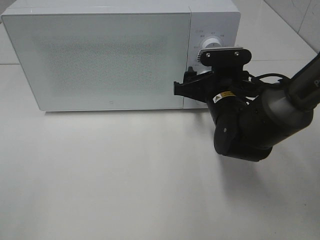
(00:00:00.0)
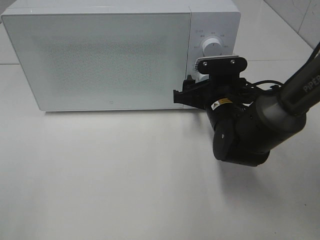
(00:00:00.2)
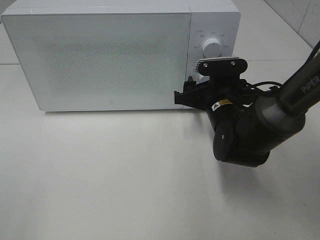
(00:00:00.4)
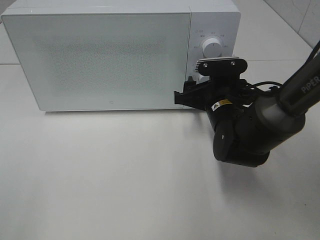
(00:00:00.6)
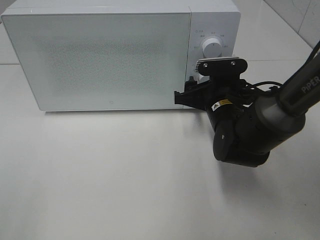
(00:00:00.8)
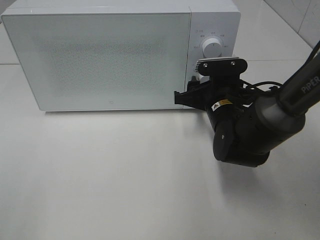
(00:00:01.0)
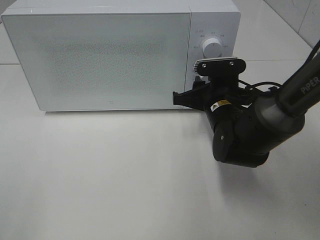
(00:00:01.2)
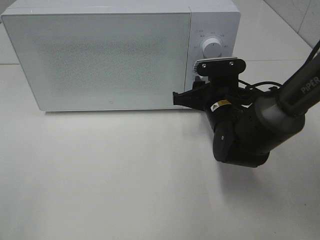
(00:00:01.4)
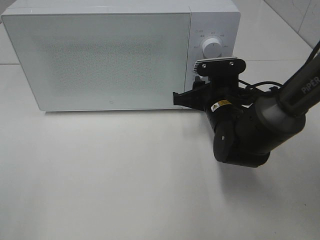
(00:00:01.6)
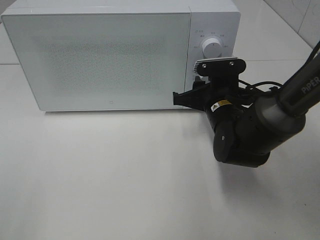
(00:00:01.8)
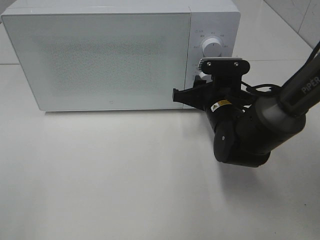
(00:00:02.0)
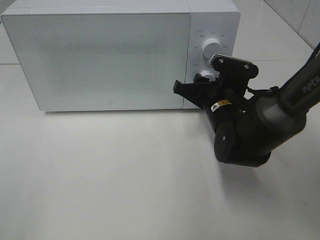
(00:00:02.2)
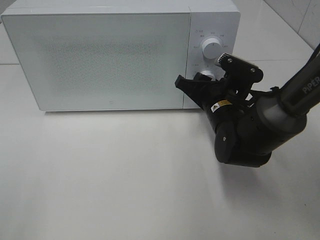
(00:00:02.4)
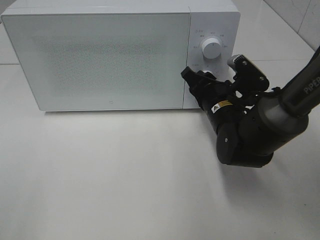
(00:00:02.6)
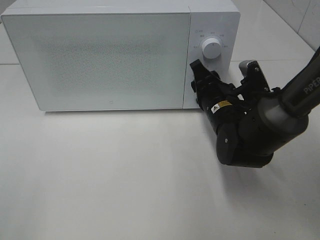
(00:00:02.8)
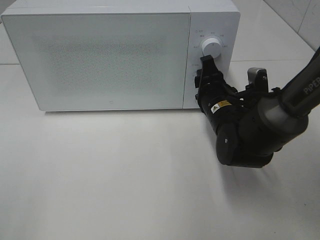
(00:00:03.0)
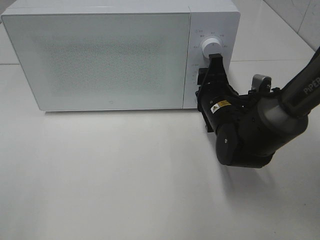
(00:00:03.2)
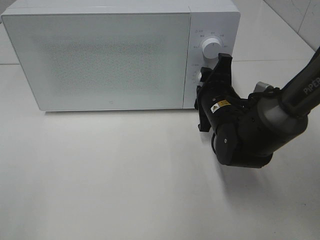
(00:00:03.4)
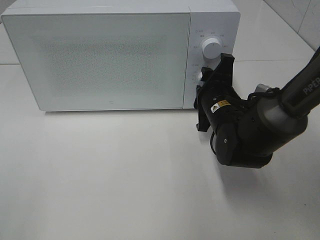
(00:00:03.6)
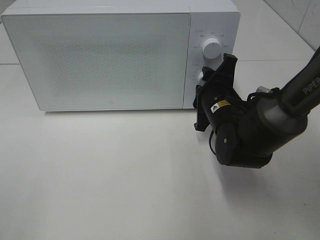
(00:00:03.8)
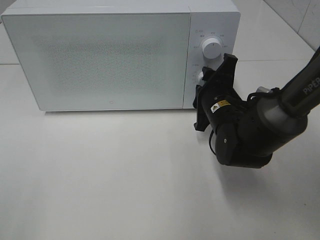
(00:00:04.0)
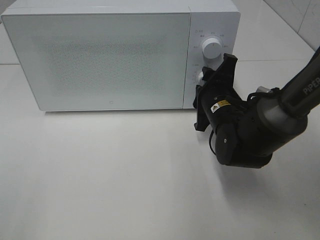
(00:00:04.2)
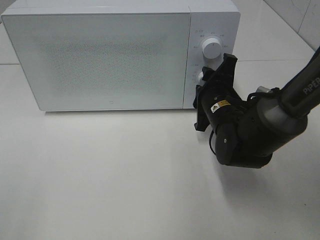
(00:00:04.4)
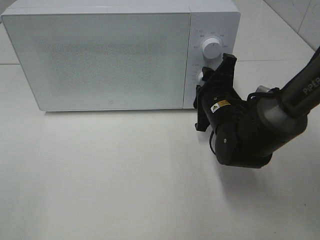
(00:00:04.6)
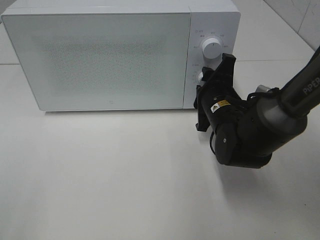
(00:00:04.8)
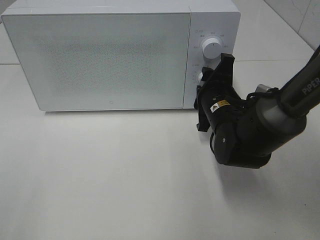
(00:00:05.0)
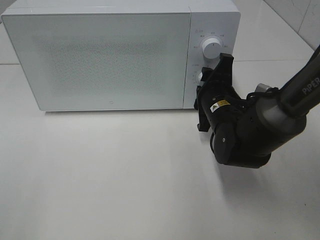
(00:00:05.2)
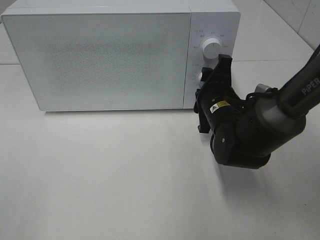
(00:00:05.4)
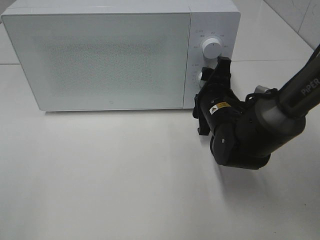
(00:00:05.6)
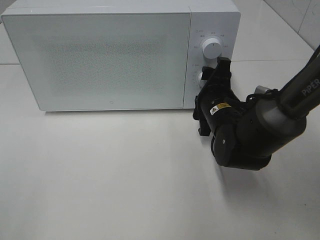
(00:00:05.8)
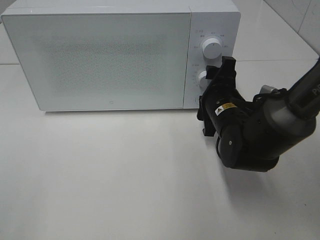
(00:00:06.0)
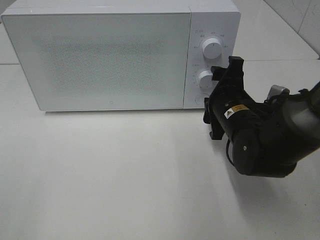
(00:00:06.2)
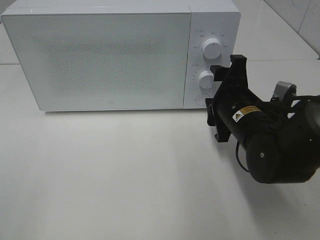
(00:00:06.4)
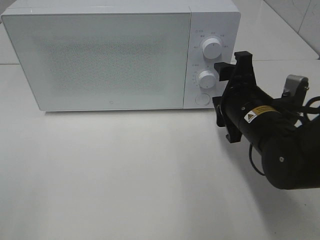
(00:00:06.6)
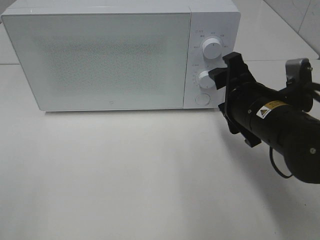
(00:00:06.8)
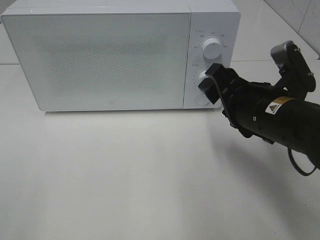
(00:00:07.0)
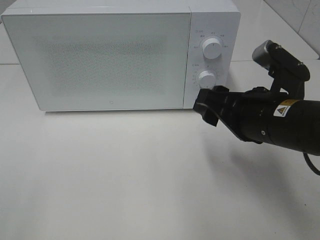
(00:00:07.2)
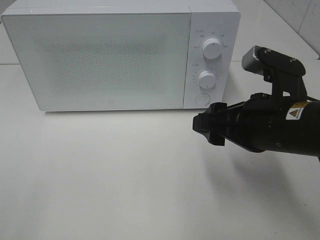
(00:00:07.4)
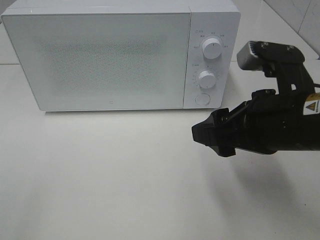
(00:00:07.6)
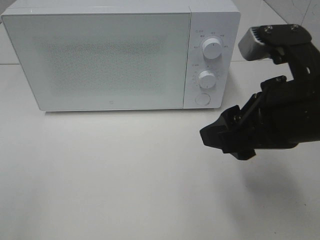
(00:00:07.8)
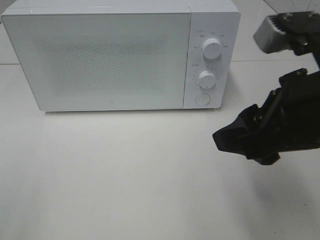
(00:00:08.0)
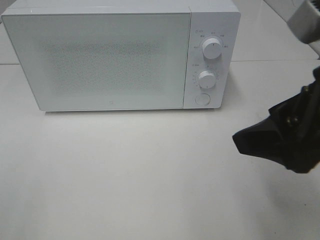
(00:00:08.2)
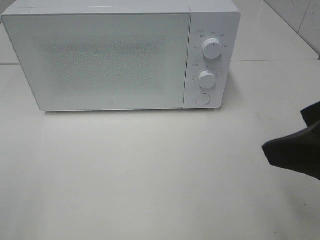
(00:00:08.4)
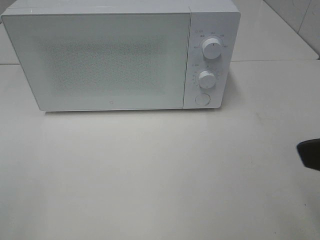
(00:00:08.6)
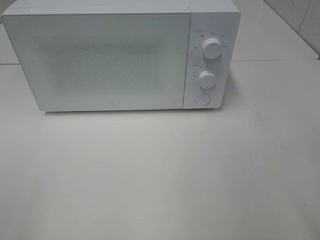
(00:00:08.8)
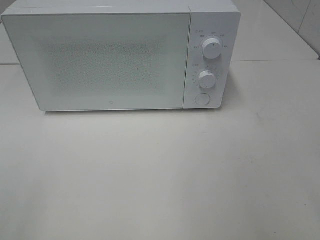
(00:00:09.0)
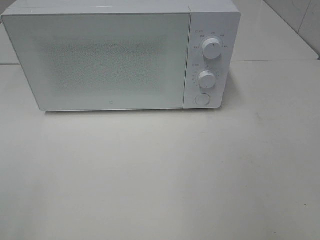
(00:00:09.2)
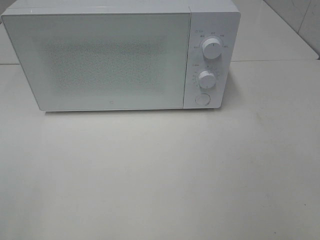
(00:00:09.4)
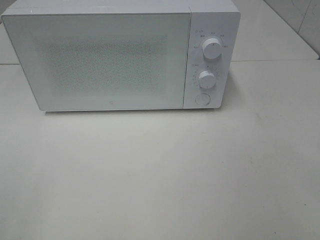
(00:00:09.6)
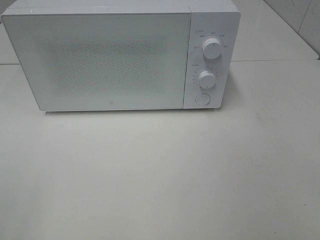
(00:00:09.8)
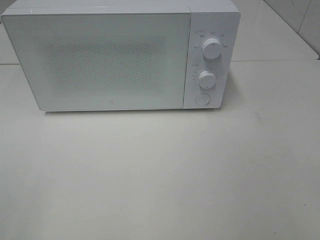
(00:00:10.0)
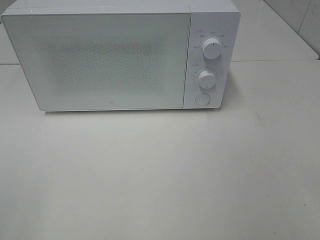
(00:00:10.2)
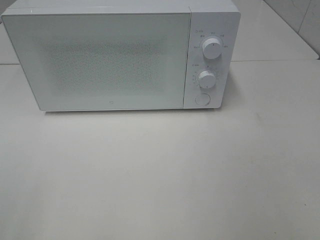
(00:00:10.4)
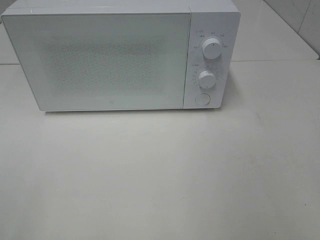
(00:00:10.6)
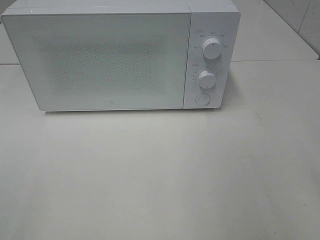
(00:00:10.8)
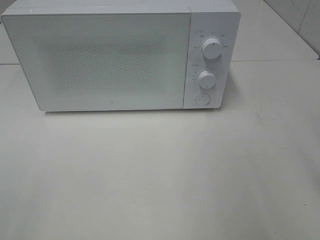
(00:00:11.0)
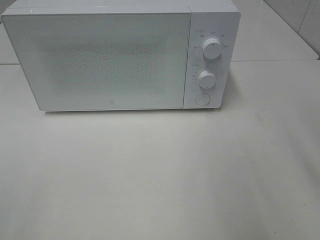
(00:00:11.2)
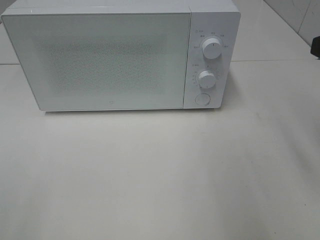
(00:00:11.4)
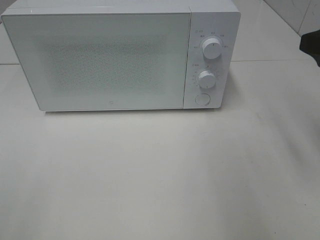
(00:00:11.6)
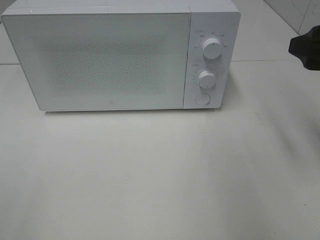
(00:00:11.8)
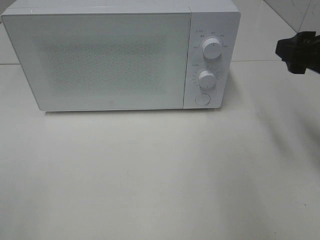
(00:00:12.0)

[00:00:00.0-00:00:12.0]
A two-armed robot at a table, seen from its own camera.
Task of the whole recording: Heat the burger.
Step, 00:00:00.0 to 00:00:05.8: Right hand: twist timer button.
00:00:00.0 to 00:00:01.6: The right gripper closes up.
00:00:04.4 to 00:00:06.0: The grippers make only small movements.
00:00:06.0 to 00:00:07.6: The right gripper is displaced backward and upward by approximately 15 cm.
00:00:07.6 to 00:00:09.0: The right gripper moves backward, to the right and upward, some 20 cm.
00:00:10.4 to 00:00:12.0: The right gripper shifts about 20 cm forward.

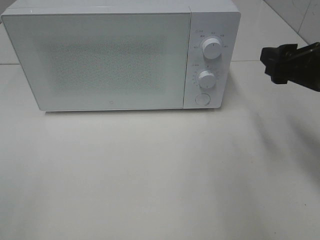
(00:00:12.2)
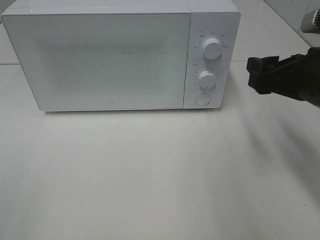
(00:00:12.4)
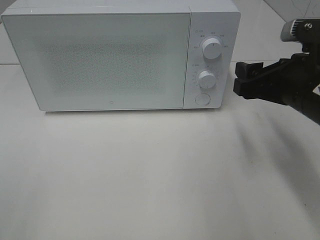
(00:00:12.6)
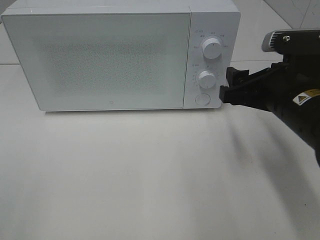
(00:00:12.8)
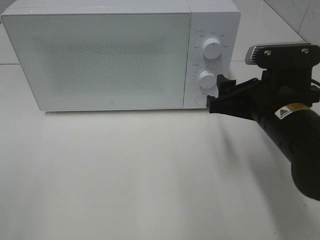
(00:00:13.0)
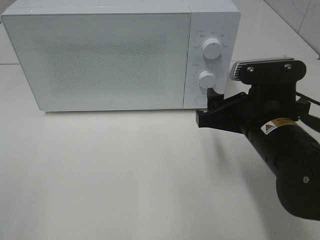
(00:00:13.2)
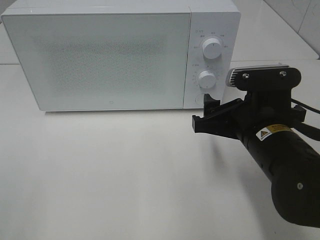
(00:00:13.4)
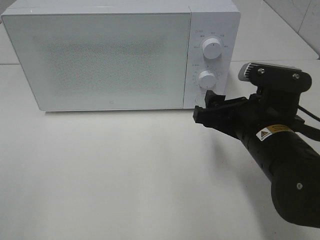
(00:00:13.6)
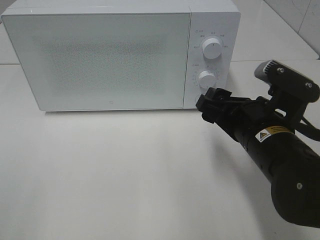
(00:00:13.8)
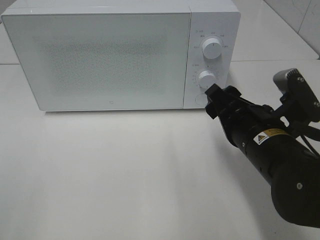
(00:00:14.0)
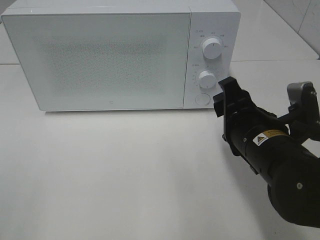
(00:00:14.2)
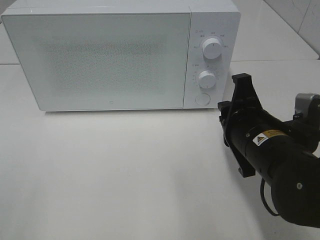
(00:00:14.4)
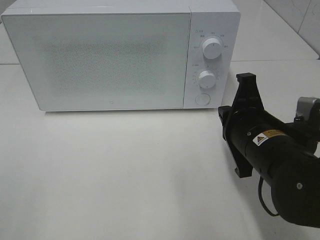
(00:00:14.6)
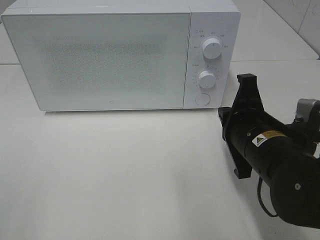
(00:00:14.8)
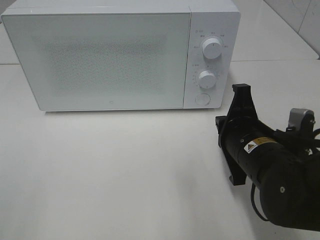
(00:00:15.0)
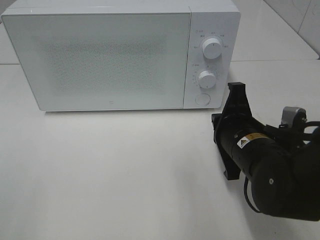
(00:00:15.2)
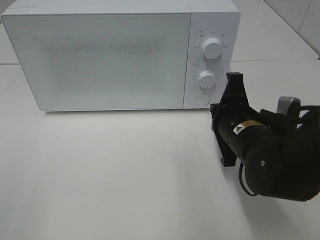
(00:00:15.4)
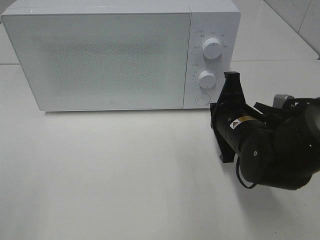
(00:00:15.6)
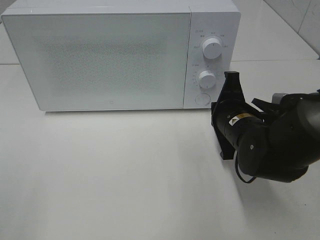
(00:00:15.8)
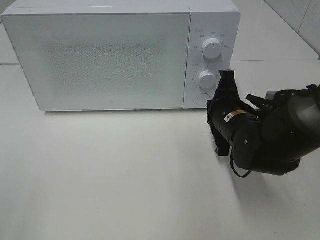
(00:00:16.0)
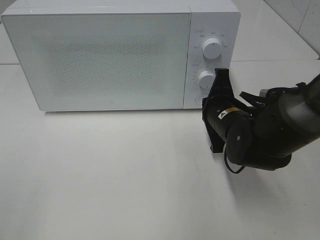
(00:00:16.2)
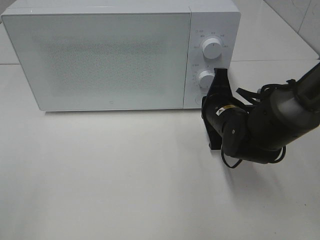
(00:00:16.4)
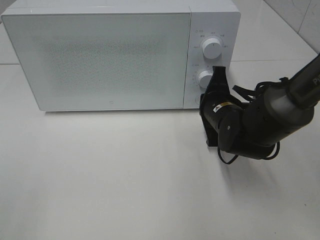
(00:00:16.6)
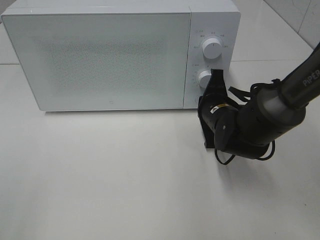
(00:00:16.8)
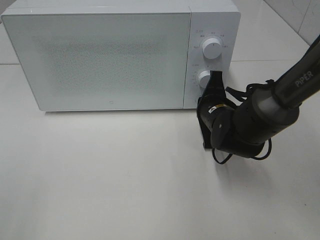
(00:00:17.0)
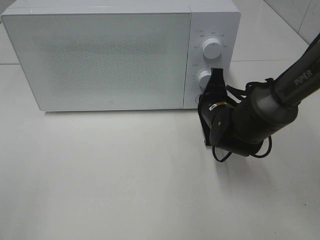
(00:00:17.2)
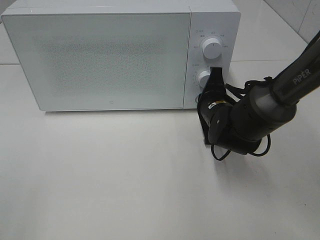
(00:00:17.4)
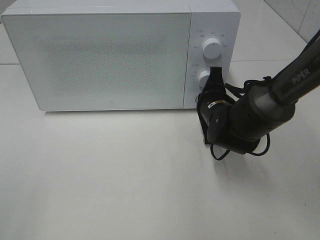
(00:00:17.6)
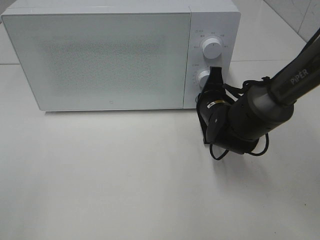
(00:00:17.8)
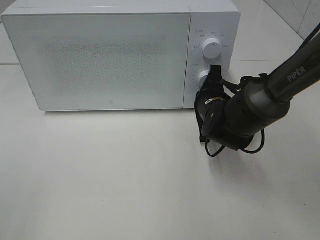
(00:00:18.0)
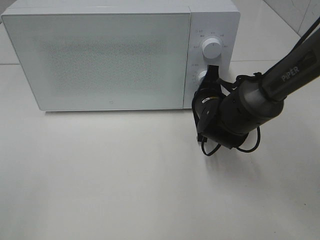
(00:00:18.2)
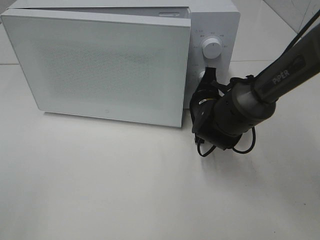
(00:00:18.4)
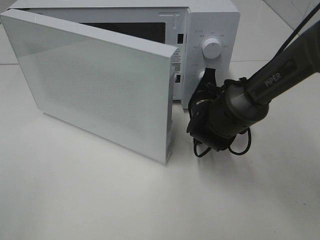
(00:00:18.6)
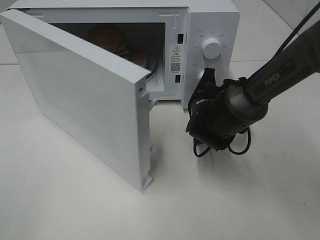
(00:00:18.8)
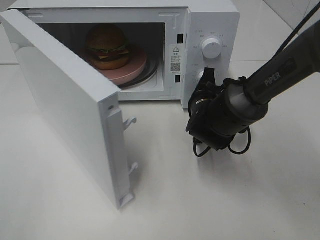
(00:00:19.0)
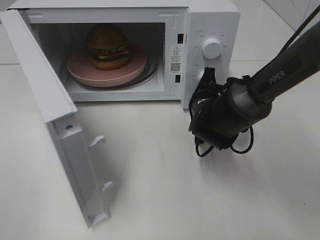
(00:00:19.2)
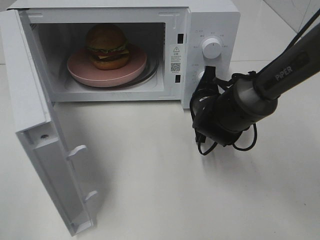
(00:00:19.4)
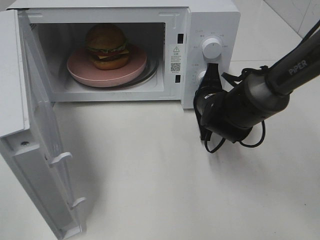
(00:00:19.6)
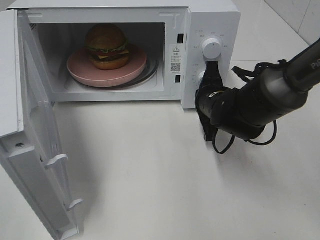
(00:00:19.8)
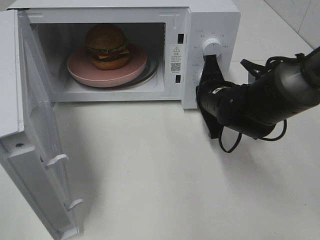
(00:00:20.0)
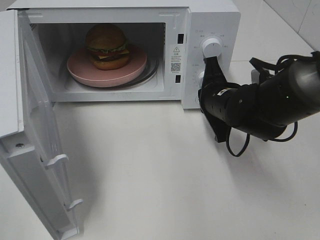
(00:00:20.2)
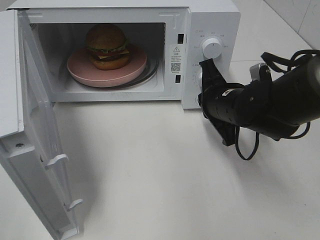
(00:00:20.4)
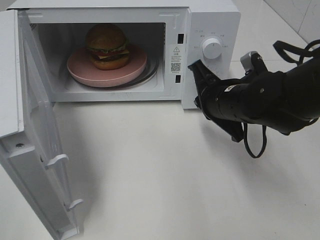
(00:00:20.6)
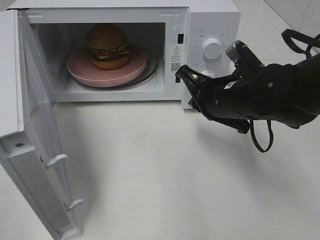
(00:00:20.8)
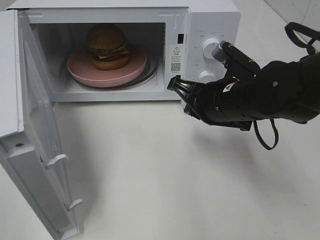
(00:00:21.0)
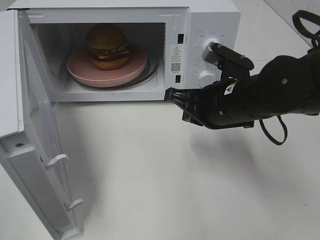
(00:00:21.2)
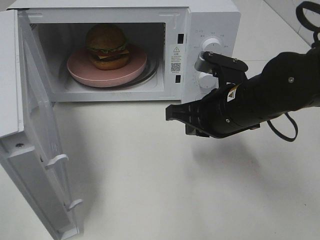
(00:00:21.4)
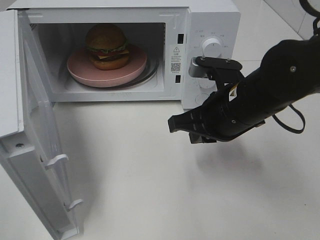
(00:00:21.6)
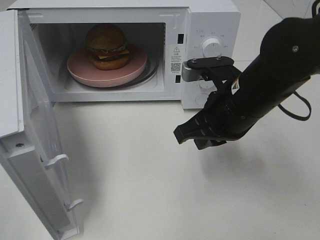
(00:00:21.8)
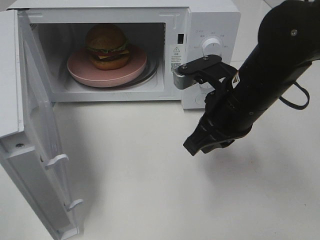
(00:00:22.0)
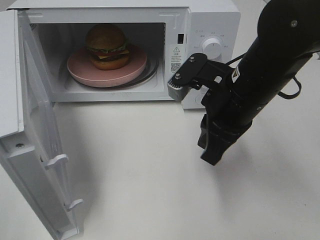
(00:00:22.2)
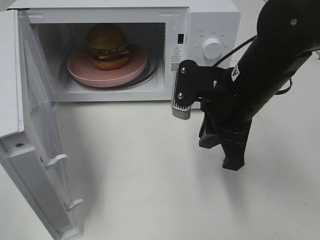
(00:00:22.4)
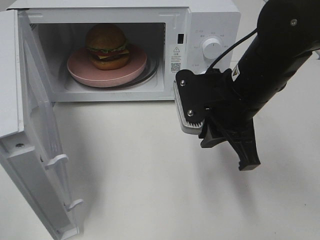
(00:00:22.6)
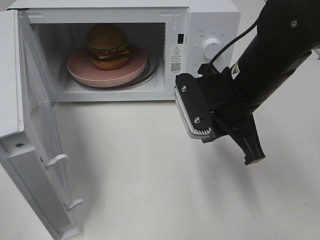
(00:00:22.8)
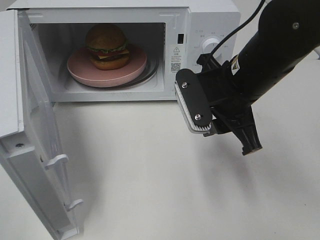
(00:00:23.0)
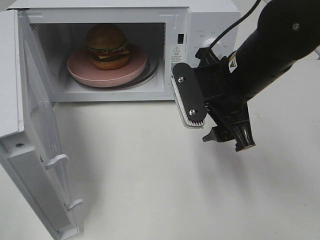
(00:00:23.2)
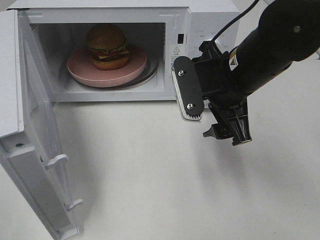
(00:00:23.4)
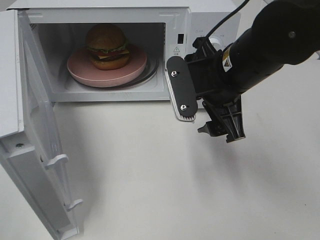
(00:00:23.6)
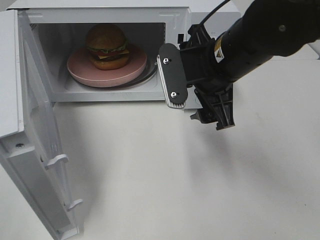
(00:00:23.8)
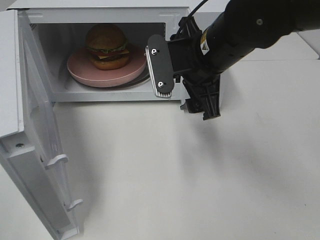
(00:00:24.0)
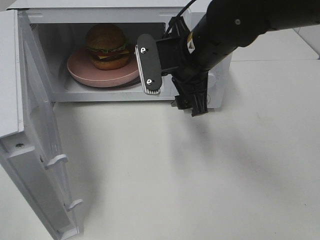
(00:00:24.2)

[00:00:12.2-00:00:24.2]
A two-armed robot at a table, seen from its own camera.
Task of the whole recording: Heat the burger.
Step, 00:00:12.2 to 00:00:19.8: Right hand: press the switch.
00:00:12.2 to 00:00:13.8: The right gripper heads to the left and downward, covering approximately 10 cm.
00:00:13.8 to 00:00:15.2: The right gripper closes.
00:00:15.2 to 00:00:16.6: The right gripper heads forward, covering about 10 cm.
00:00:16.6 to 00:00:18.2: The grippers make only small movements.
00:00:19.8 to 00:00:21.2: The right gripper goes roughly 10 cm backward and upward.
00:00:22.6 to 00:00:24.2: The right gripper shifts roughly 10 cm forward and to the left, and opens.
